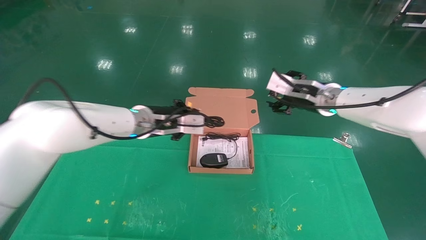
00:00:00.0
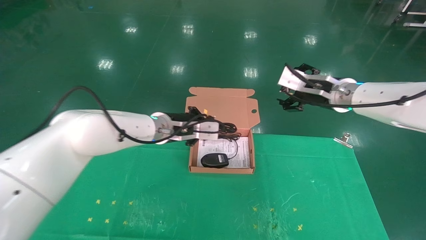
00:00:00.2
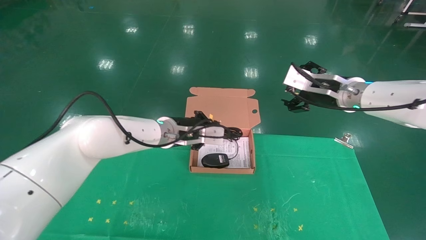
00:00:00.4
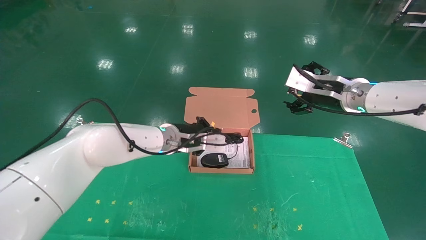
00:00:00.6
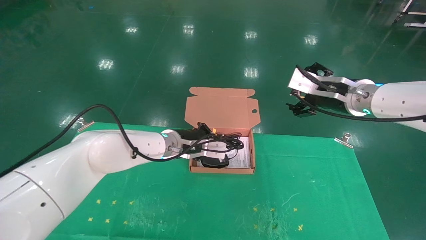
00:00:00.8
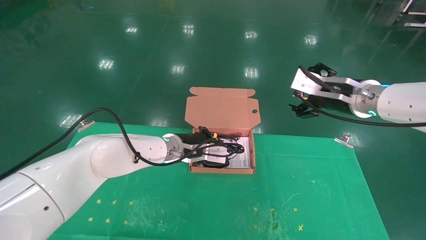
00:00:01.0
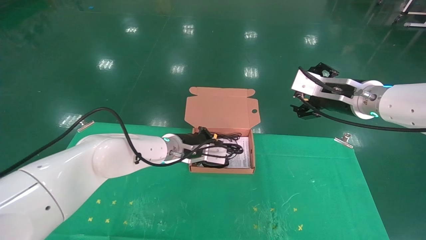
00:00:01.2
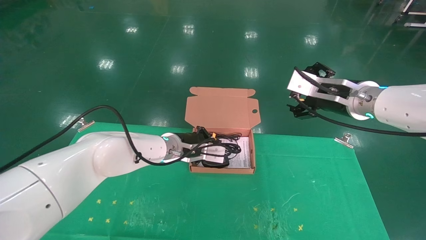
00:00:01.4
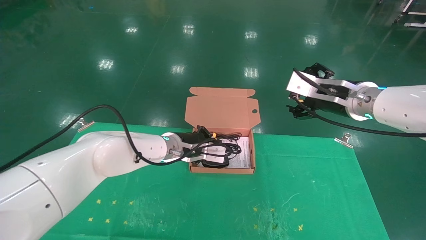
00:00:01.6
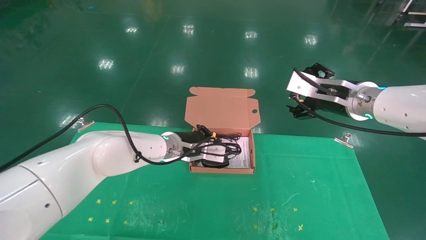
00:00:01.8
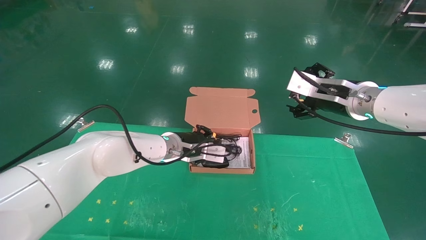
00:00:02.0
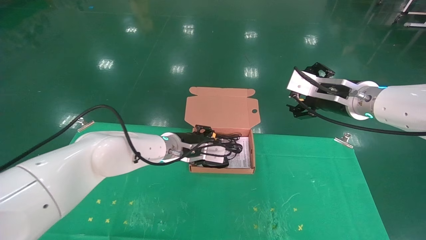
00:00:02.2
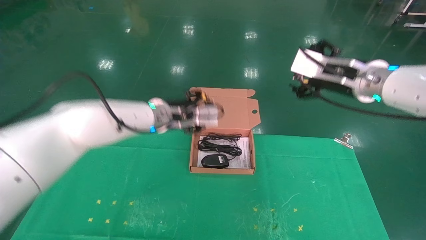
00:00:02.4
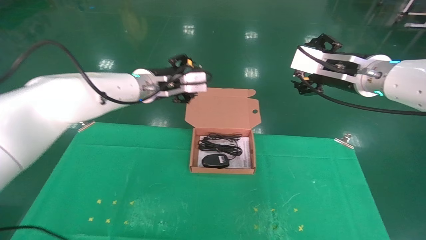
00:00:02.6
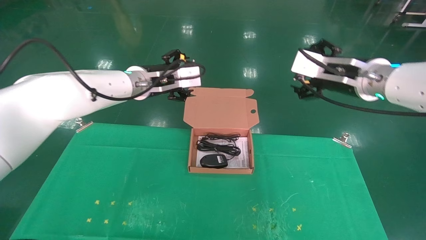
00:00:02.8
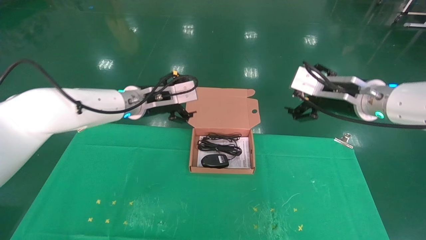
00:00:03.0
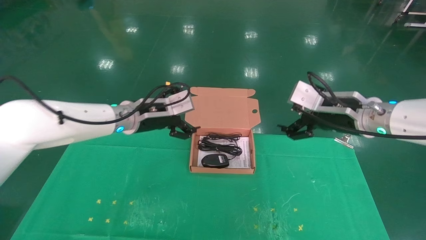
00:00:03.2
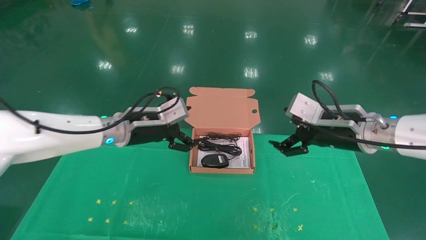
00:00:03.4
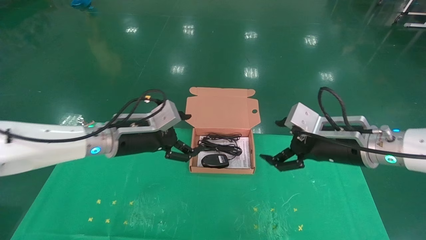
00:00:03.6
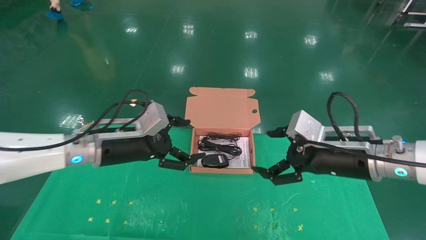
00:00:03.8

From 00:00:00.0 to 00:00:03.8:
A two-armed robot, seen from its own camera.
Task of the whole recording: grasp data cable left put into box grasp mouse right put into box.
Step, from 00:00:00.0 to 00:00:02.0: Place the mouse and power cord into the box.
From 00:00:00.0 to 00:00:01.2: The right gripper is displaced backward by approximately 5 cm, and opens; the left gripper is displaced downward and to the right by roughly 10 cm.
From 00:00:01.2 to 00:00:02.6: The left gripper travels upward by about 10 cm, and opens up.
From 00:00:02.6 to 00:00:03.8: The left gripper moves backward, downward and to the left, approximately 15 cm. Meanwhile the right gripper moves downward and backward, some 10 cm.
